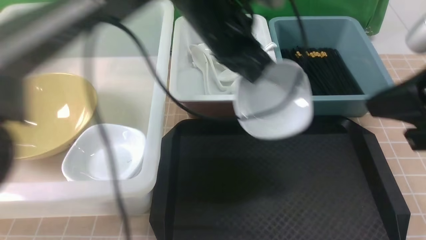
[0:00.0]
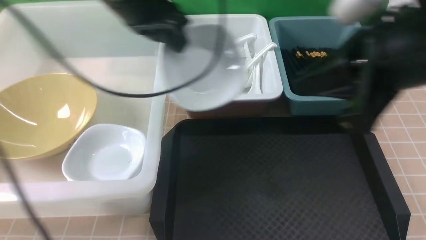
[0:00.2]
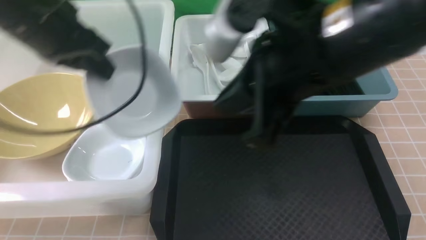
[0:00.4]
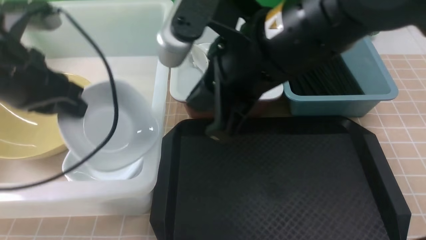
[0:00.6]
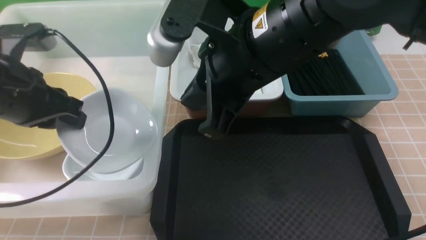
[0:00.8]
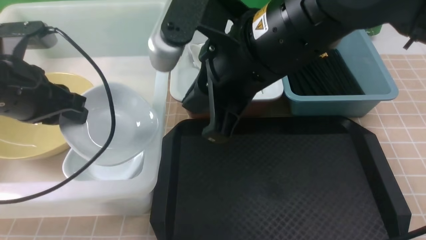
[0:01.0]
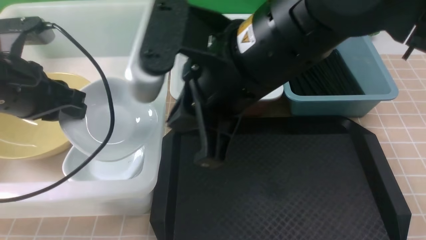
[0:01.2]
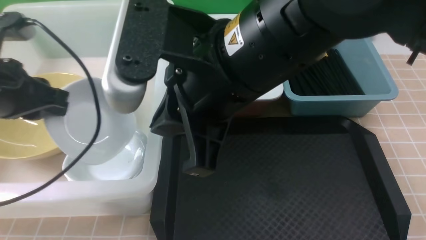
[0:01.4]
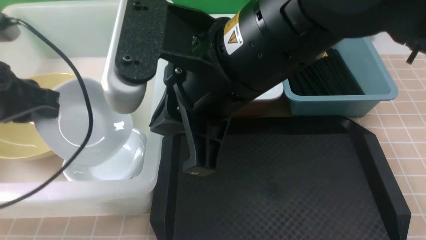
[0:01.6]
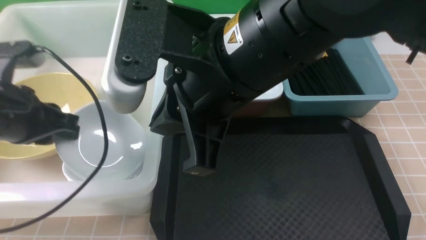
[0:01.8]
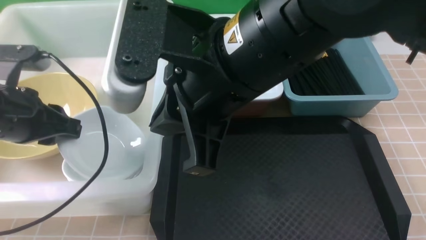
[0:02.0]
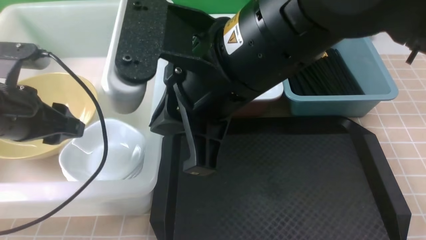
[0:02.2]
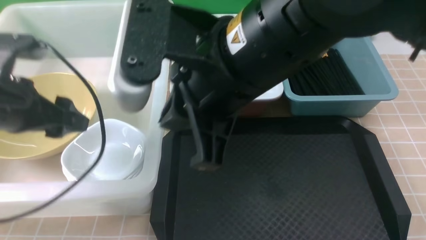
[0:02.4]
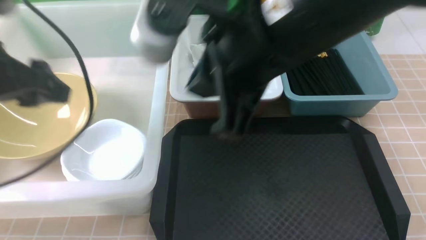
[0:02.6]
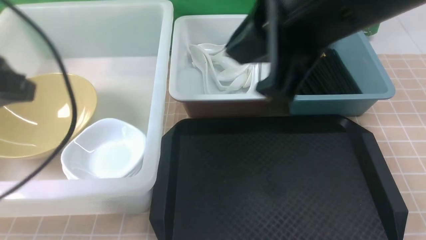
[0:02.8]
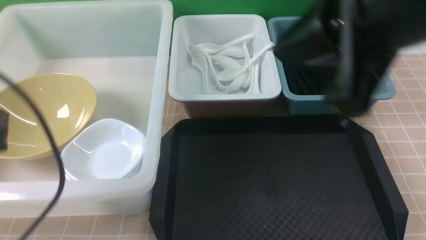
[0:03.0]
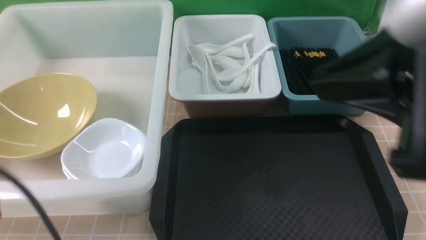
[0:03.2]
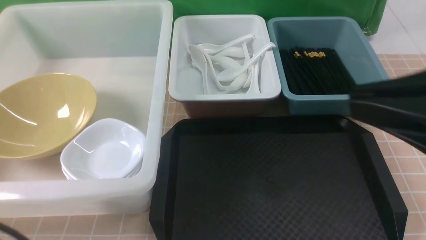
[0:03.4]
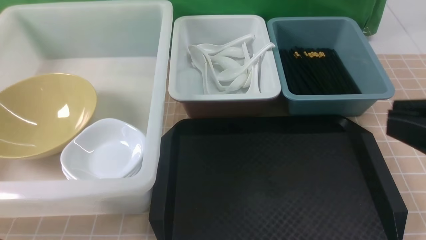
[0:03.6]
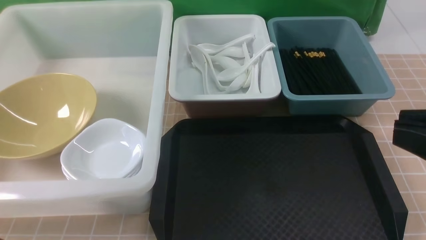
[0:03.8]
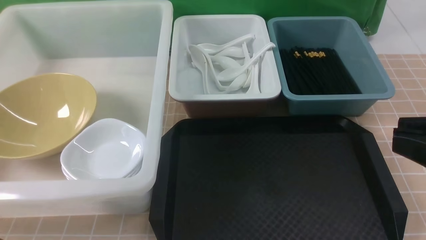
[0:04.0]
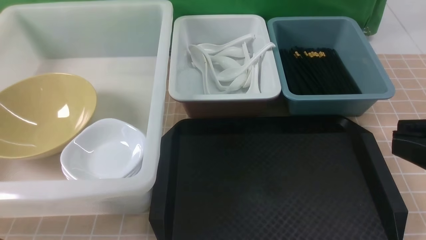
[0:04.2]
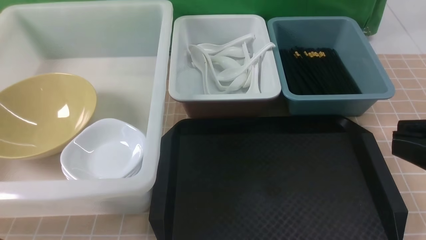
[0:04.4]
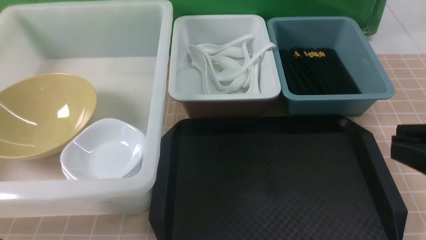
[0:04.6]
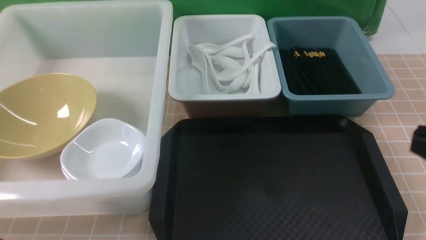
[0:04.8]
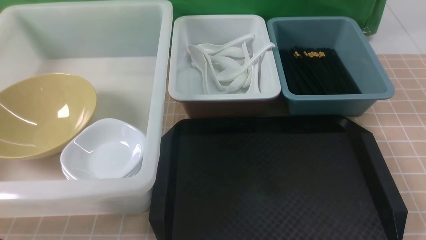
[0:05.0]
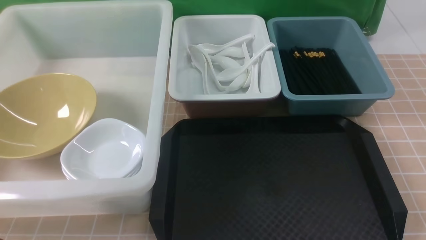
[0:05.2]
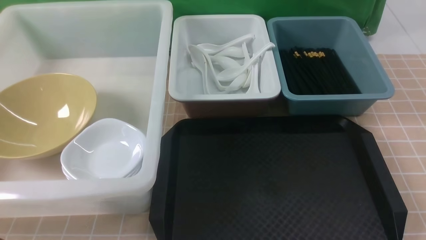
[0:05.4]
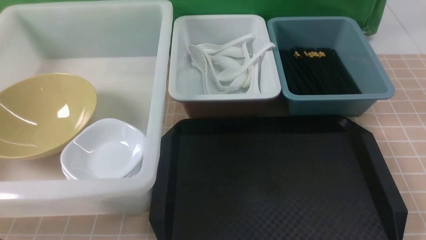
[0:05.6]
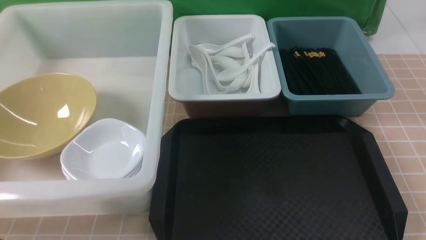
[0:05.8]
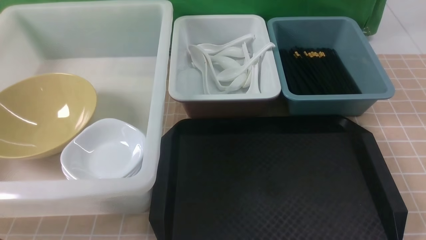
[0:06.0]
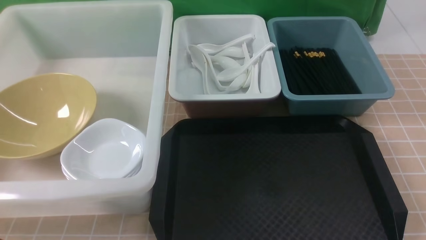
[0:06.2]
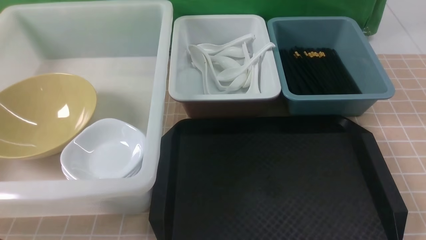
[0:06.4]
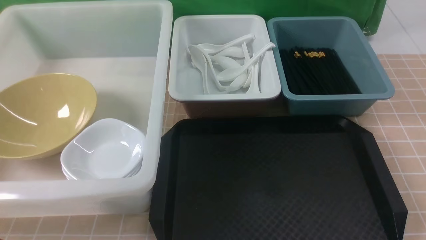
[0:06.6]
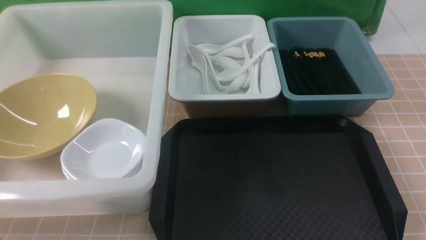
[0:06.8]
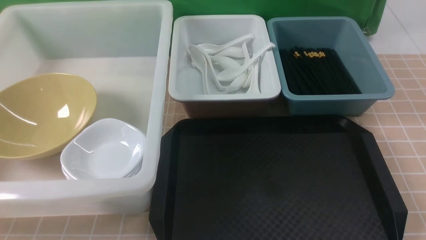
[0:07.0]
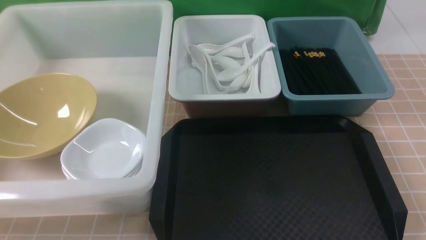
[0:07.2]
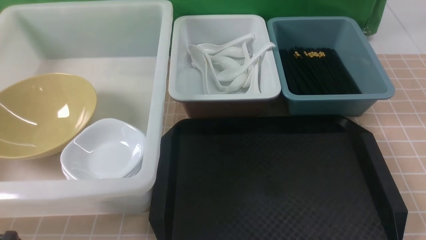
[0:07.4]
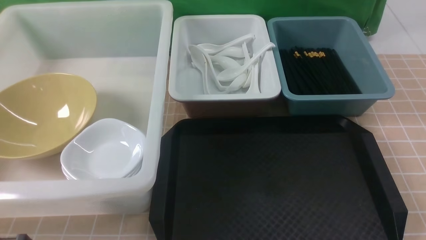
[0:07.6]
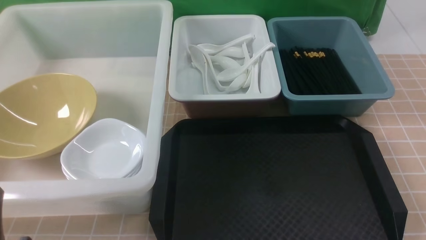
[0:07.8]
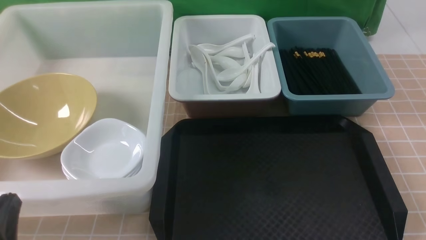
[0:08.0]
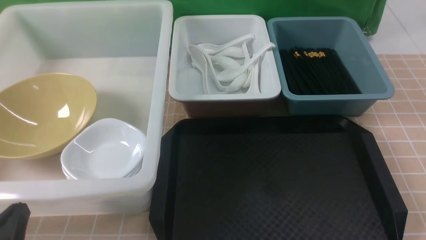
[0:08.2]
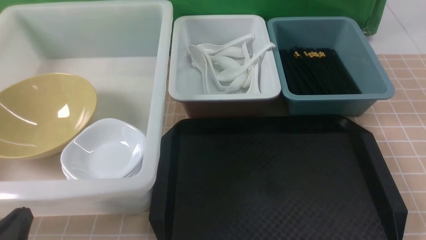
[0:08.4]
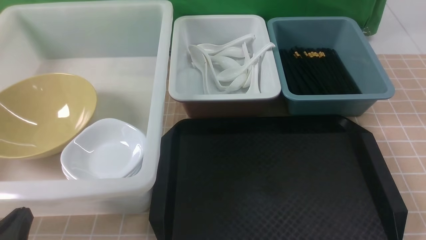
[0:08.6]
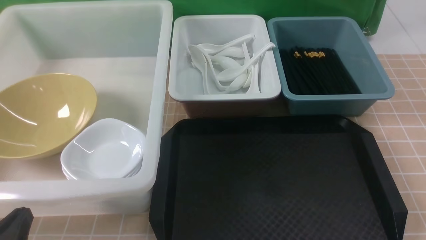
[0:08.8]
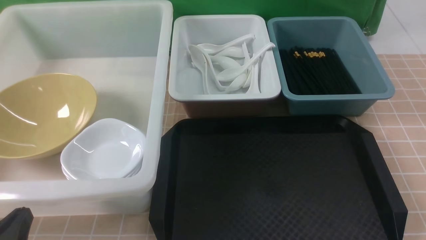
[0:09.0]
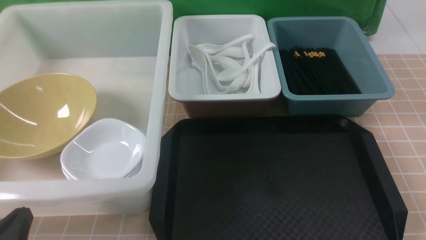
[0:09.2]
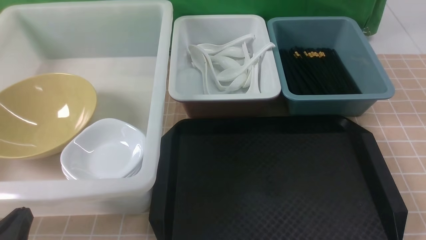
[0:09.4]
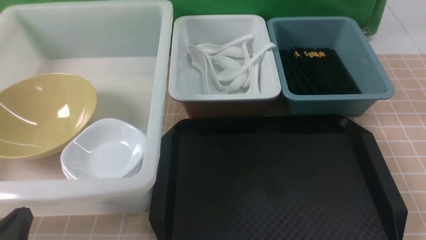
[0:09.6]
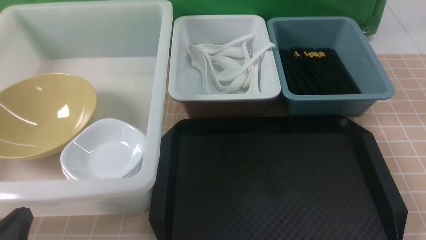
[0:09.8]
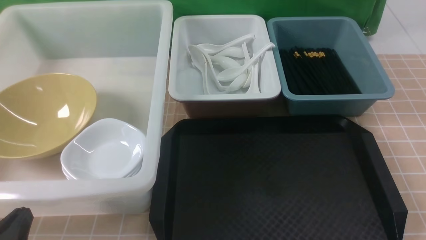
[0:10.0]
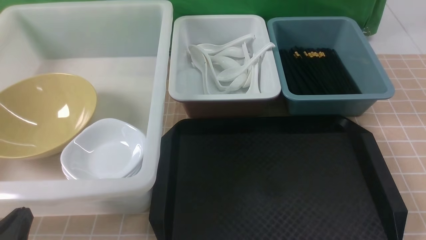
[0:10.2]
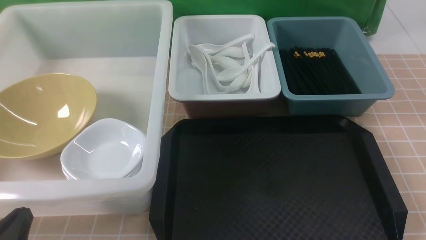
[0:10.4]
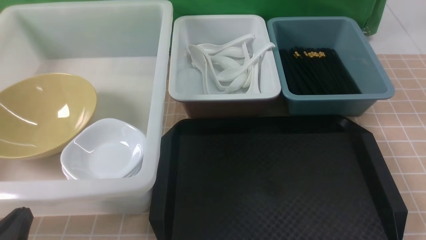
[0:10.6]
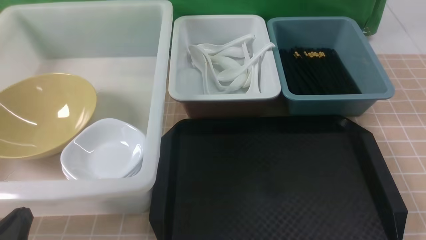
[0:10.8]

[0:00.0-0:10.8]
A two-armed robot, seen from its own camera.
Task of the whole recording: on brown table put chopsticks spoon bowls plates into blue grey white boxes.
Step, 0:00.0 to 0:02.8: use the left arm to put the plate into the large storage box on the left.
0:00.0 to 0:01.6: The left gripper is displaced to the left and backward by roughly 25 cm. Meanwhile the right gripper heads to the left, covering approximately 20 cm.
0:01.6 to 0:03.0: The left gripper goes some 15 cm backward and upward, and opens, then closes again. The right gripper heads to the right and upward, covering roughly 15 cm.
0:03.0 to 0:04.6: The right gripper is displaced to the right, backward and downward by some 15 cm; the left gripper shifts some 10 cm backward and downward.
0:04.6 to 0:06.2: The right gripper heads downward and to the right, covering roughly 20 cm.
0:07.8 to 0:09.2: The grippers make only small movements.
0:09.2 to 0:10.8: Both grippers stay put.
